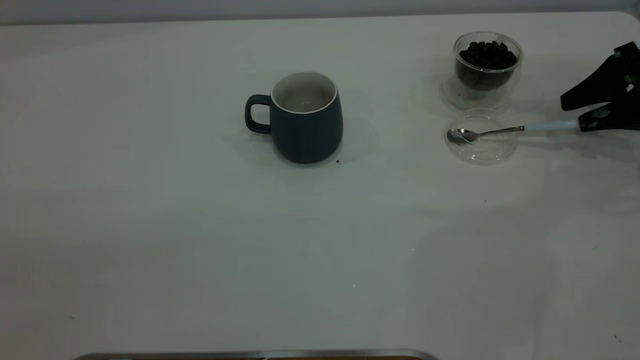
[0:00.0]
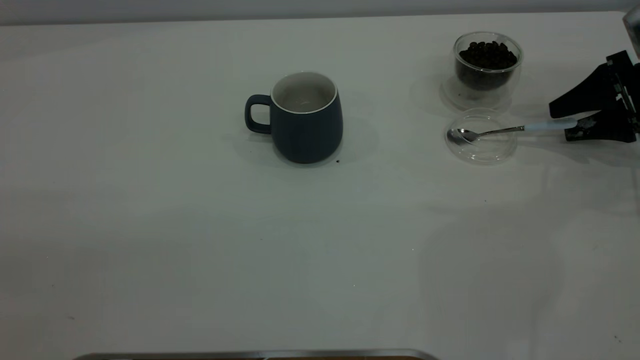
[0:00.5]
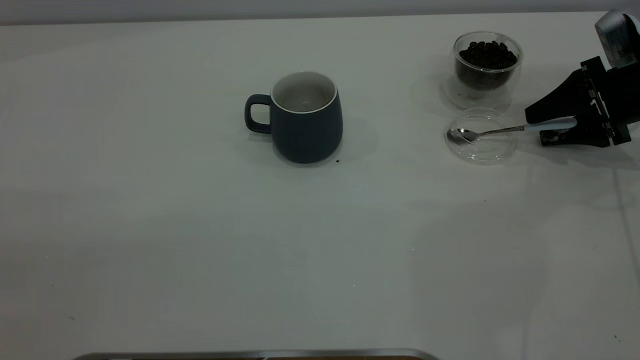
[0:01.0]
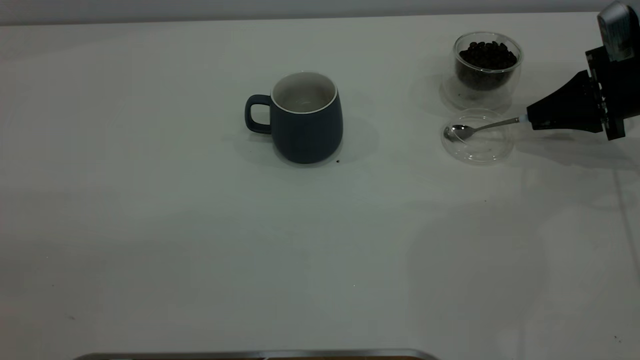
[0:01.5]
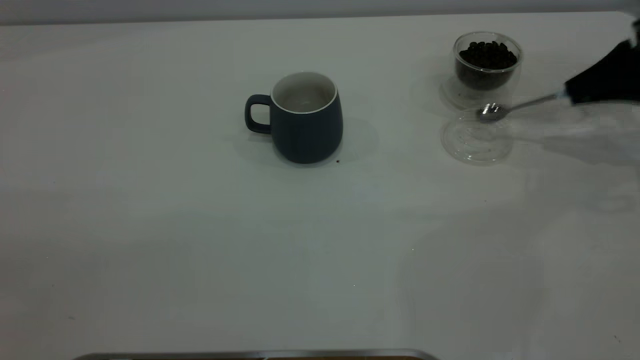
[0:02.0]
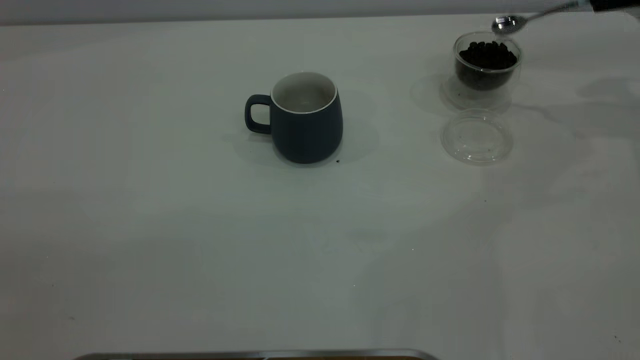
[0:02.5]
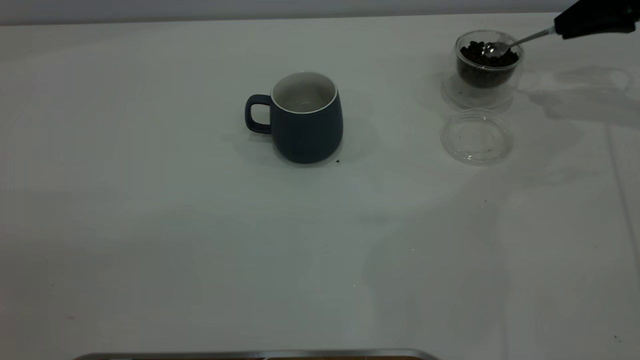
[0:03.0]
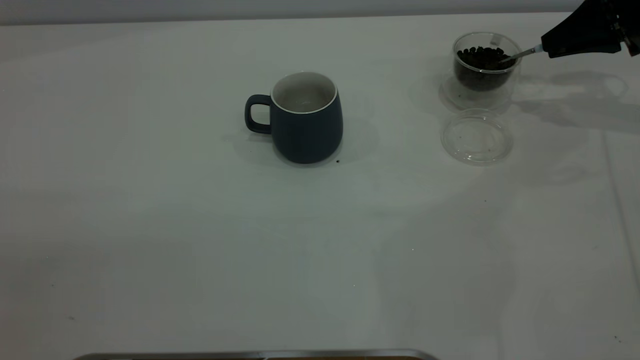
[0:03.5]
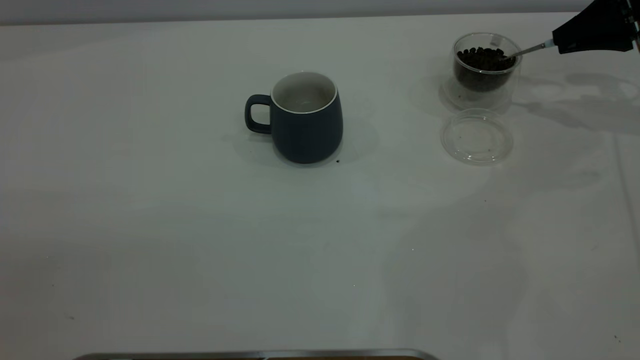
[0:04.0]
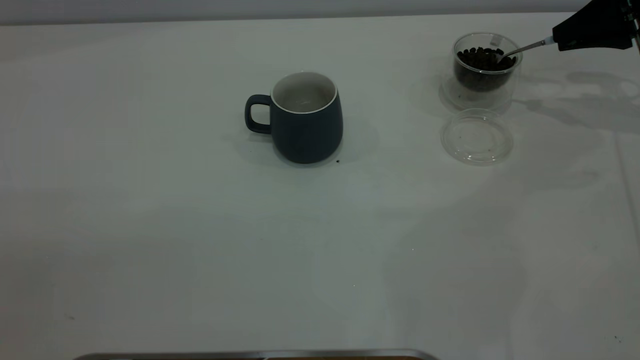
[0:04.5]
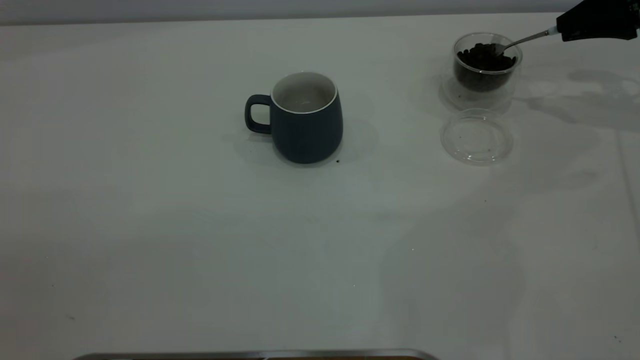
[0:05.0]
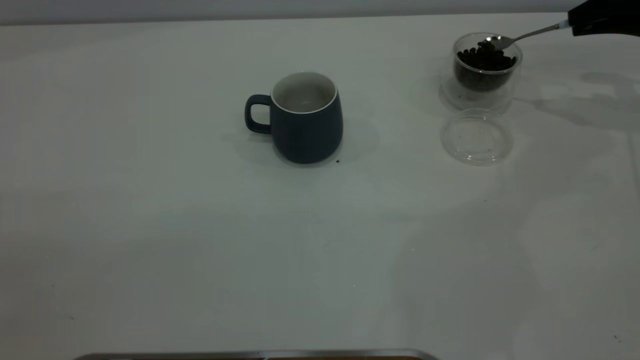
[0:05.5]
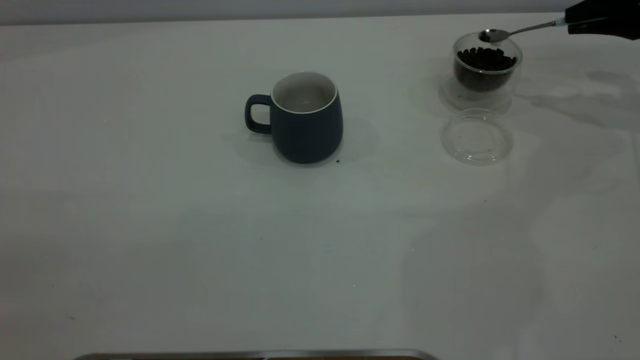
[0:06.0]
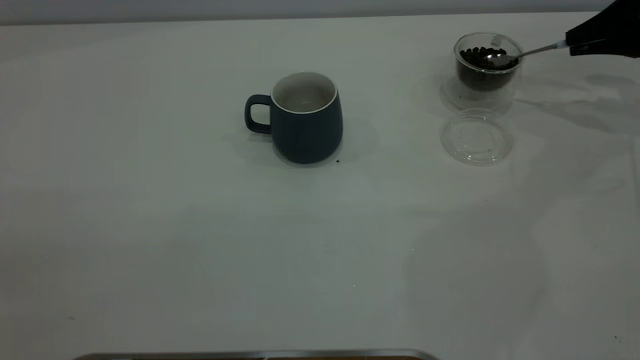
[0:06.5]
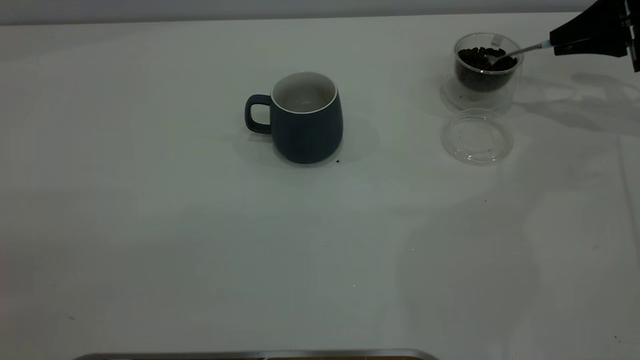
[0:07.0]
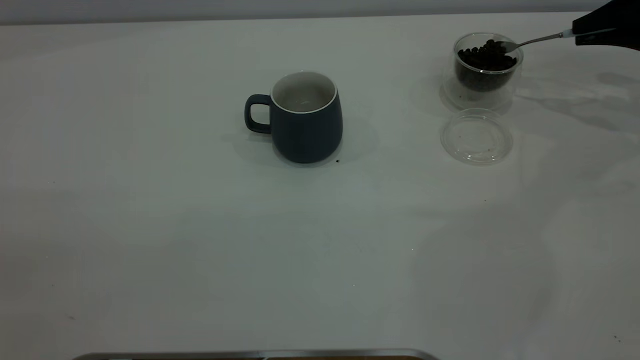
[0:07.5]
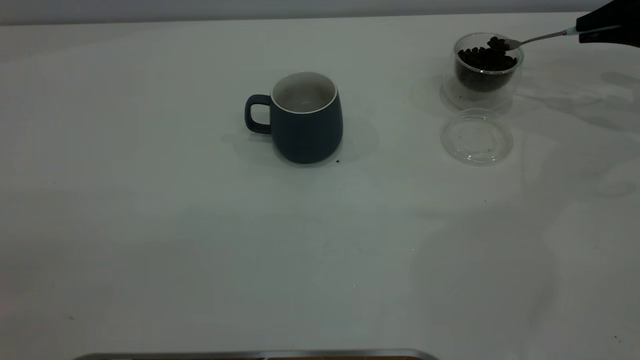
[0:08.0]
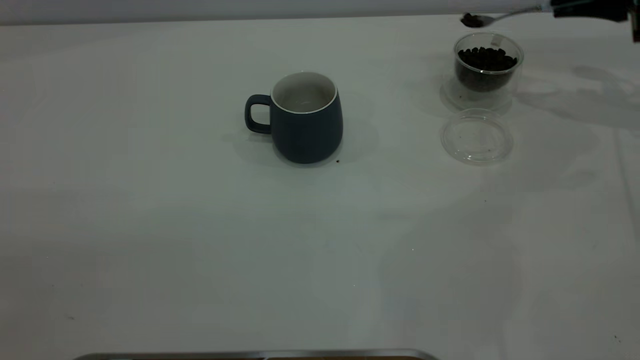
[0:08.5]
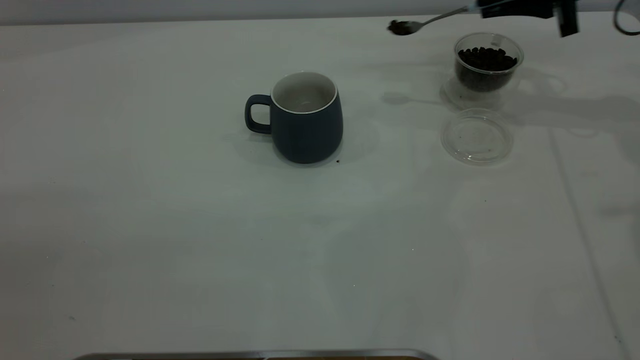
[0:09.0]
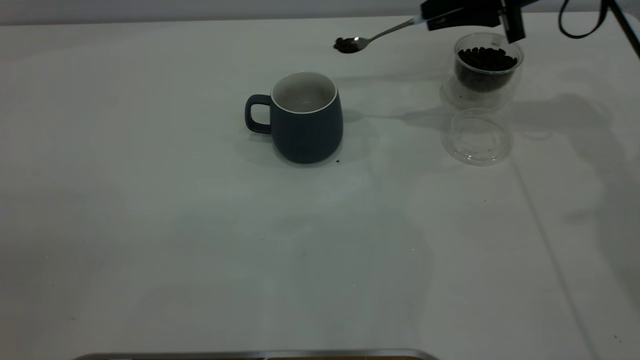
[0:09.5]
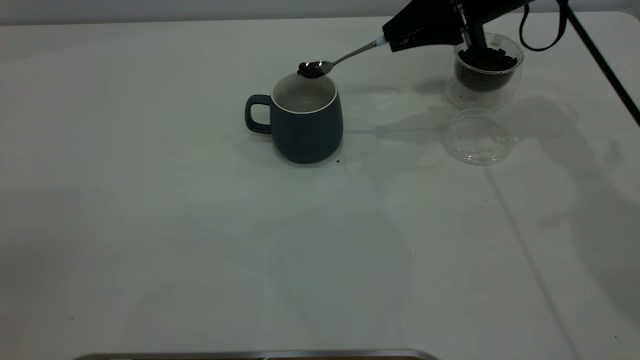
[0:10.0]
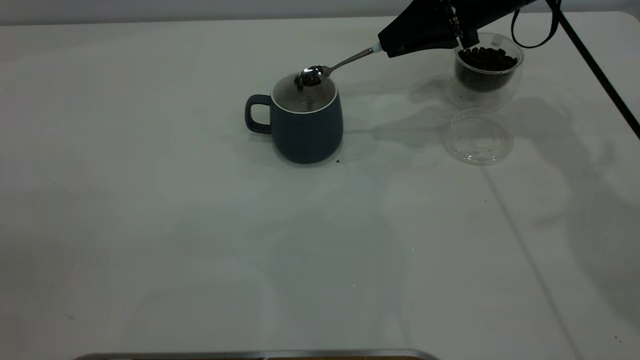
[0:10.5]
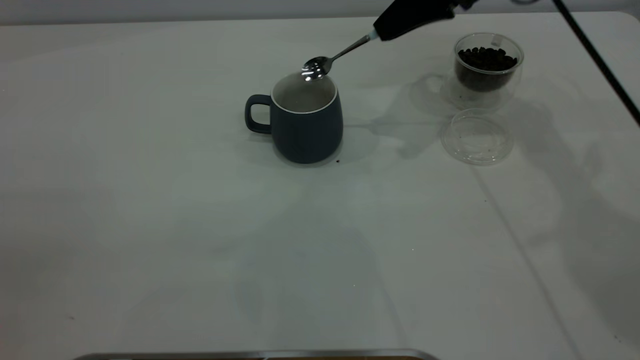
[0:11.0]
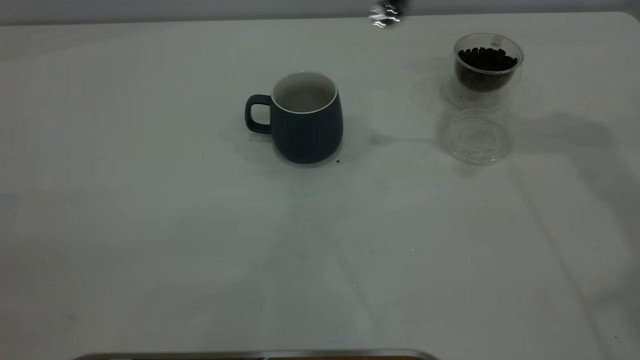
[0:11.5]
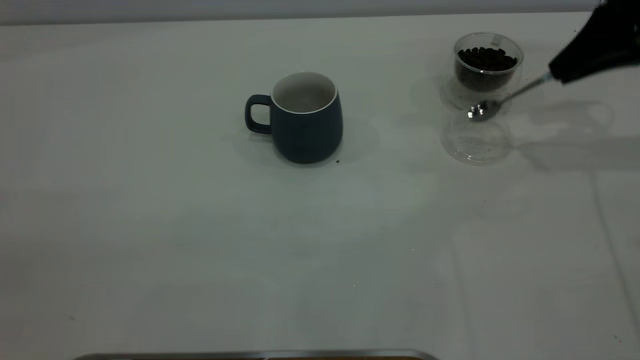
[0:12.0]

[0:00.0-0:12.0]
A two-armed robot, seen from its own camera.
Task of the whole recording: the left gripper place the grey cup in the center of the table, the right gripper take the blue spoon from the cup lid and scoop out the coffee beans from the coffee cup and put them into the grey cup, the right gripper put the spoon back into the cup lid.
Step, 0:02.5 to 0:11.0: Scoop a spoonful of beans into the cup.
0:00.0 to 0:02.0: The right gripper closes up.
0:02.0 to 0:04.0: The right gripper travels forward by roughly 5 cm, and reaches roughly 10 cm upward, then returns.
0:04.0 to 0:08.0: The grippers stay close to where they were, moving slightly.
0:08.0 to 0:10.0: The right gripper is displaced to the left by some 25 cm.
0:10.0 to 0:12.0: The right gripper moves to the right, some 15 cm.

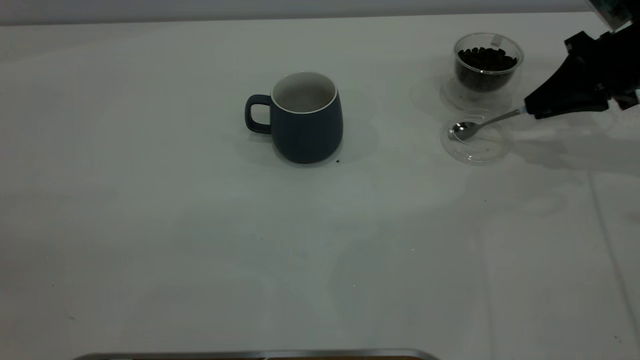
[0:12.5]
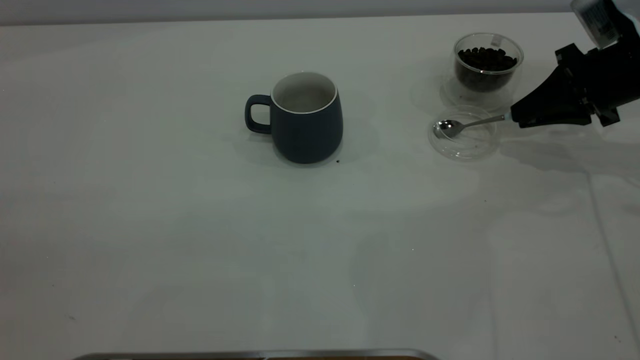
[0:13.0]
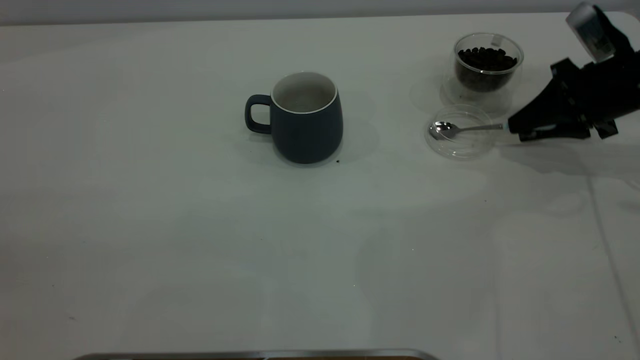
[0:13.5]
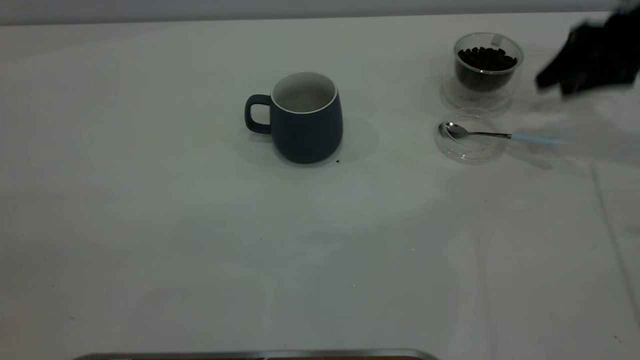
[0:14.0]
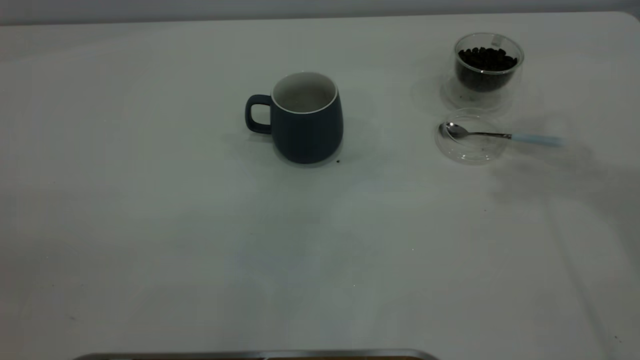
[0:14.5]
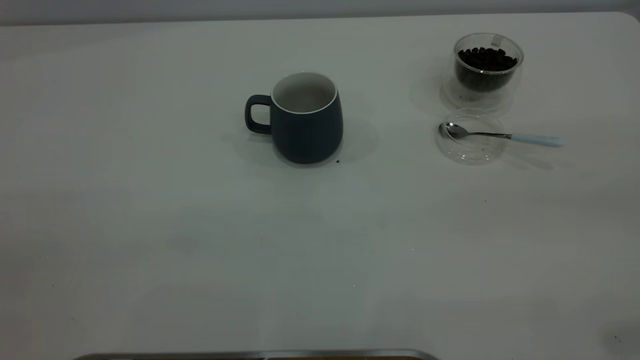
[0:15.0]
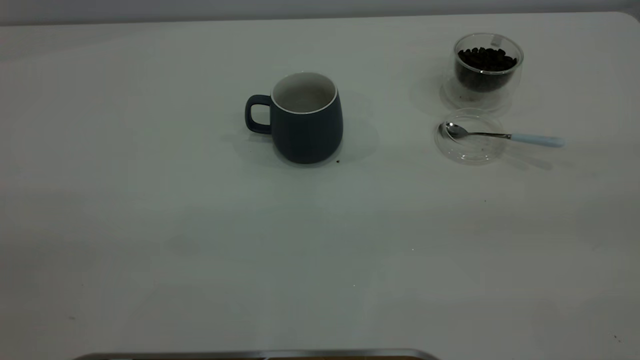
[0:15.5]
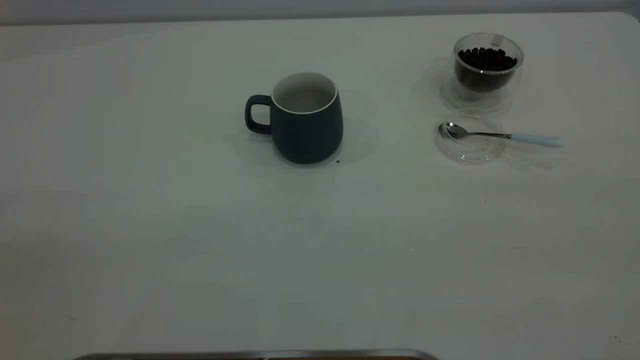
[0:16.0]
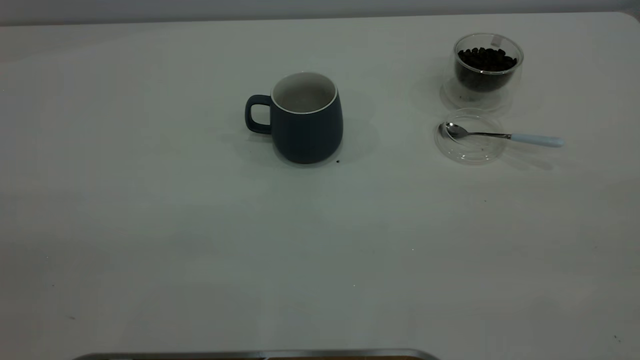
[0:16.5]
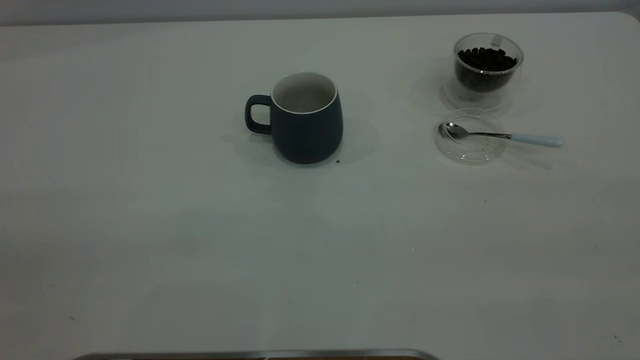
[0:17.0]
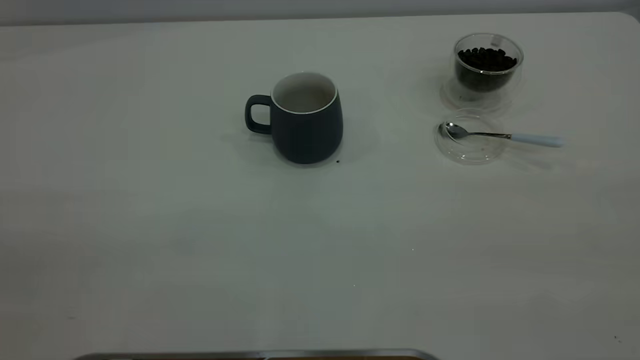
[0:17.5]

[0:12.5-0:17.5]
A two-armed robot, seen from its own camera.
Task of the whole recording: the left gripper place the grey cup in the center of the table, the right gripper take the blue spoon from the cup lid and scoop out the coffee beans from the coffee cup and put them into the grey cup, the right gripper put the spoon back into the cup lid.
0:12.5 to 0:15.0: The right gripper moves backward and upward, about 40 cm, and opens up.
